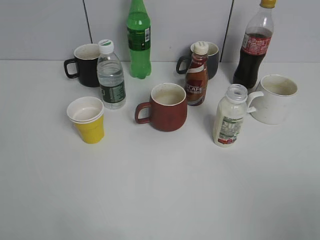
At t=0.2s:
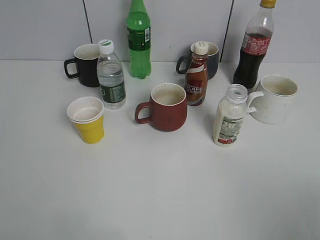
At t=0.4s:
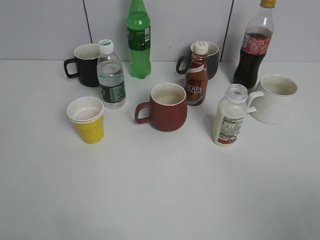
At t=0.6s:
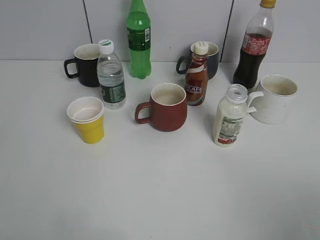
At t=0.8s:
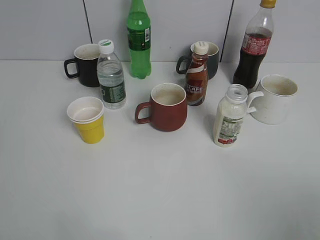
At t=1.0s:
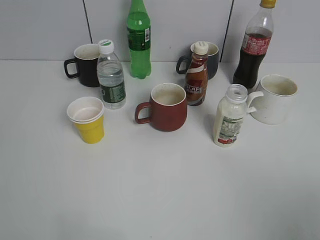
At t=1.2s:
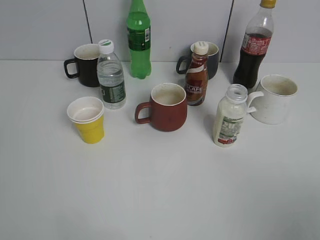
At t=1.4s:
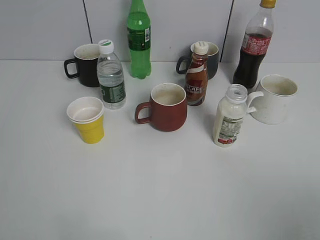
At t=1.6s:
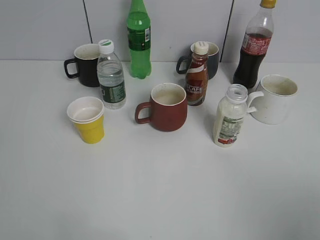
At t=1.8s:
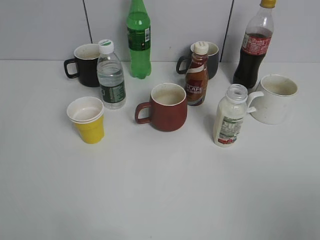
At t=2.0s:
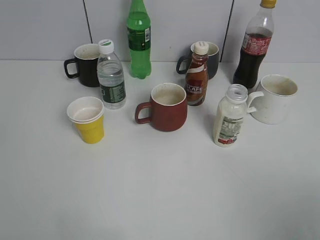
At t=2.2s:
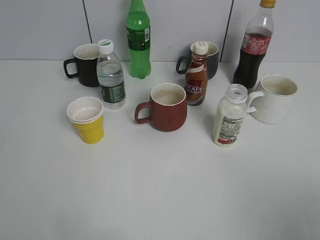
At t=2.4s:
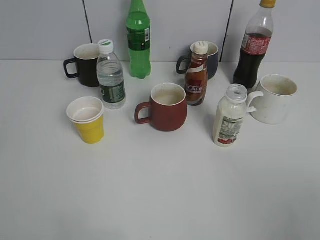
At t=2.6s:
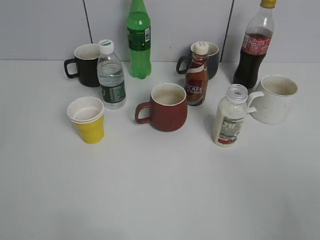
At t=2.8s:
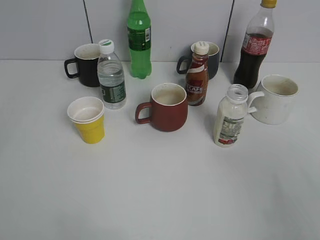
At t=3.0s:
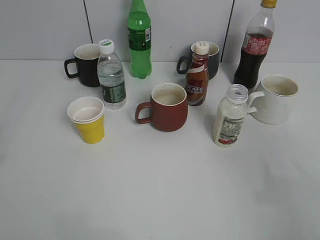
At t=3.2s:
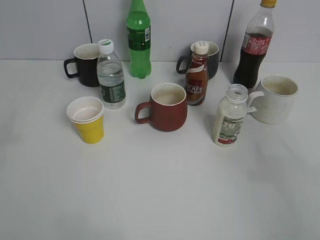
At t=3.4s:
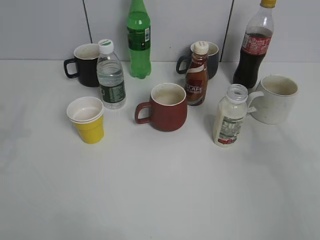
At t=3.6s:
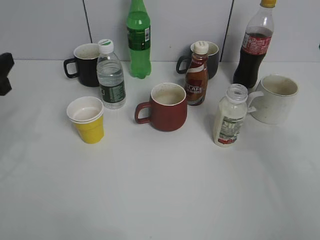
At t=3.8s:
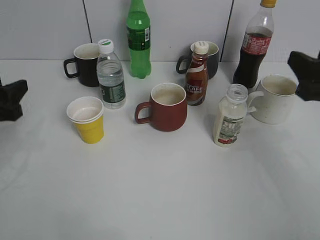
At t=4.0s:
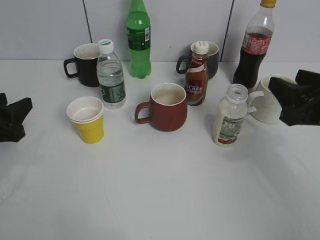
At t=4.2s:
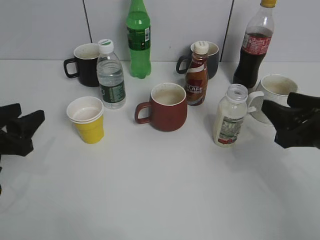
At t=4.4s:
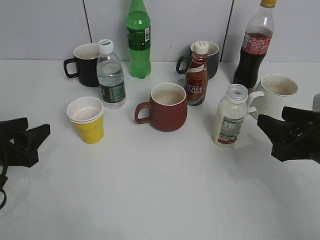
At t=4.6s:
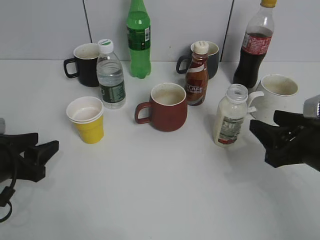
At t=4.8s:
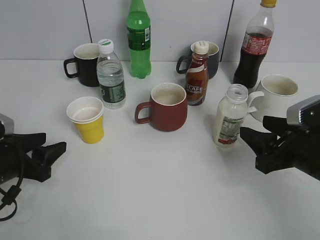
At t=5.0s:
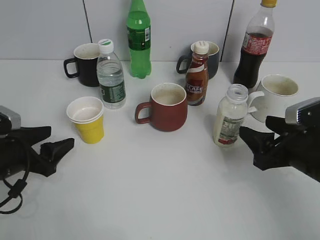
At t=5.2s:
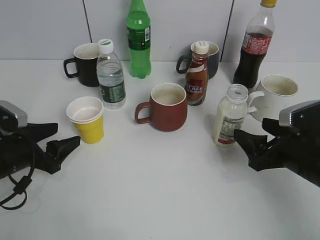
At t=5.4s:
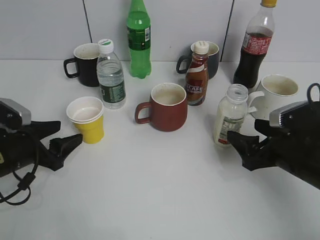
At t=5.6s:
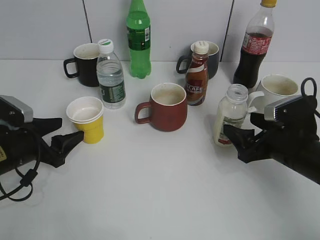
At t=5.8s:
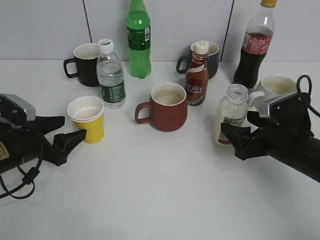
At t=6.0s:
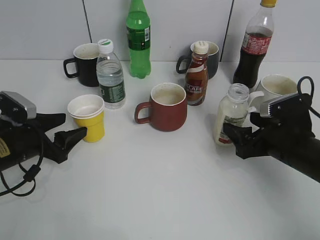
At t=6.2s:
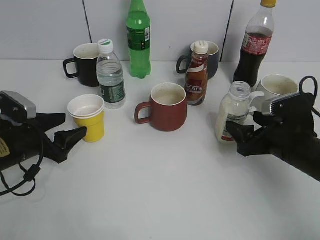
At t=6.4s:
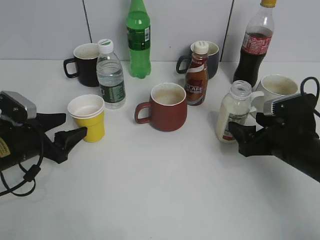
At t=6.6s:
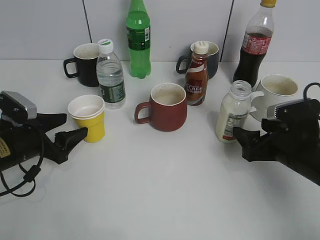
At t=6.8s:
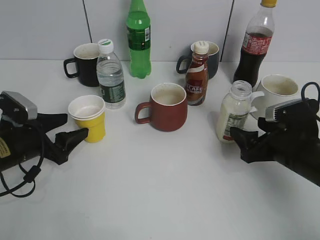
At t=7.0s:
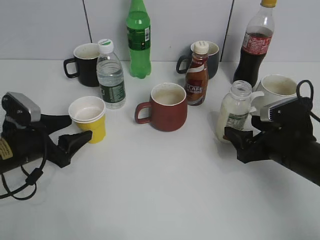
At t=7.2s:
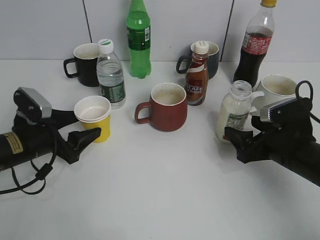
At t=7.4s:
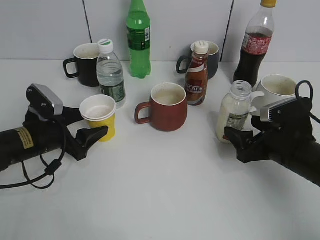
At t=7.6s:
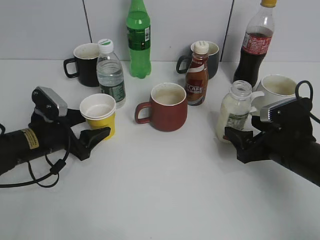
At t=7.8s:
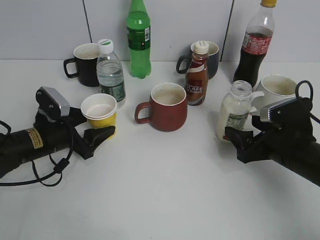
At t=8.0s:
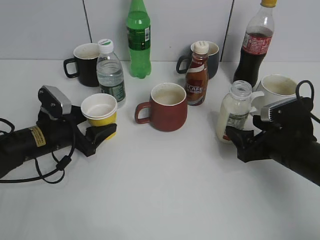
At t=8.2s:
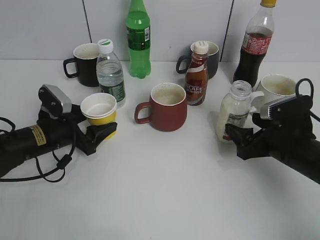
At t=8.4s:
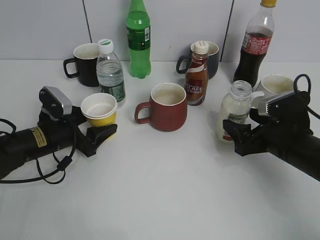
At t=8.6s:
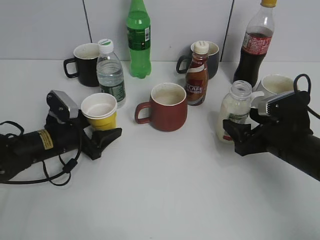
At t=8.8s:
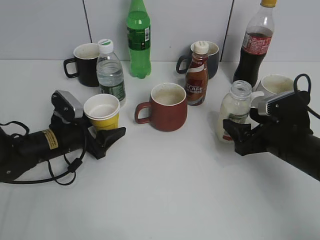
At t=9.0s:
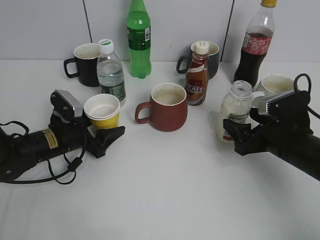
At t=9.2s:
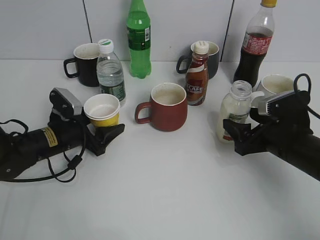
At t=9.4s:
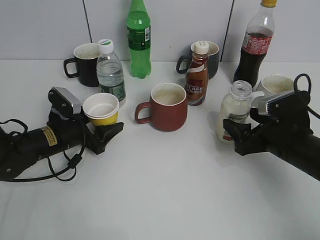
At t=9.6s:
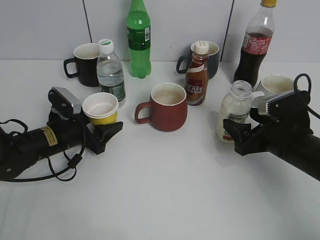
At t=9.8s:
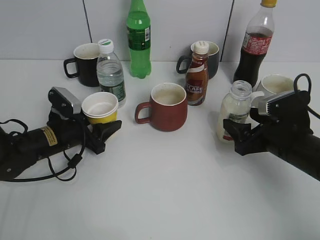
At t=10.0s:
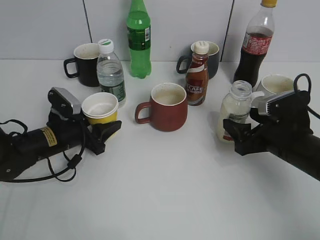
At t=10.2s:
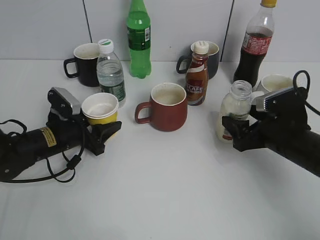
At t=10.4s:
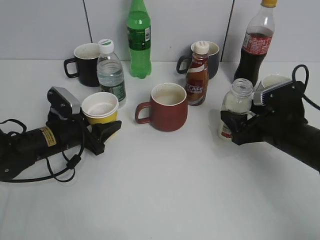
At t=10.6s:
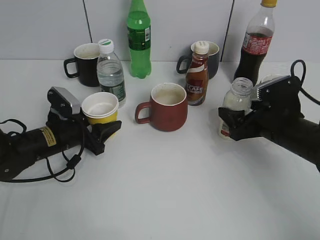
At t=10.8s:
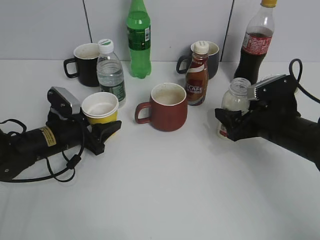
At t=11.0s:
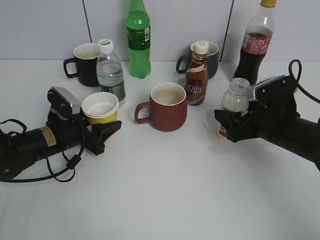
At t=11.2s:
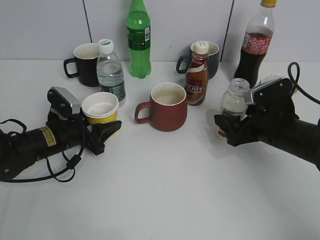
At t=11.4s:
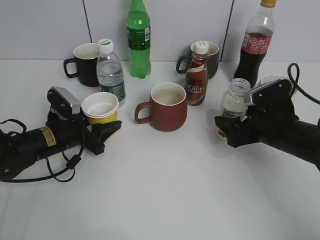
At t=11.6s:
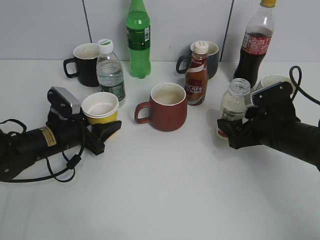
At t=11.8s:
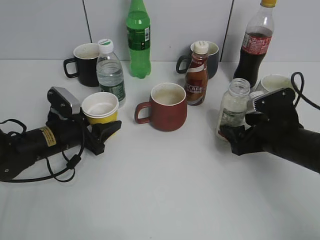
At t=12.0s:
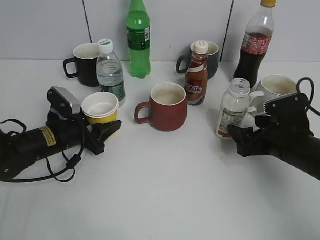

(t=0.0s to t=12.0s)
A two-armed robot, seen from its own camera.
Step, t=3.6s - t=9.8s: Grasp the yellow paper cup with left gripper.
Step, t=10.0s - t=10.2s: Lift the yellow paper cup with left gripper.
t=1.6s - t=3.0s: The right gripper goes roughly 10 cm forward, and closes up.
t=3.0s - t=4.4s: The left gripper moves downward, some 20 cm, while the right gripper goes about 20 cm downward and forward.
t=4.4s - t=6.0s: The right gripper heads downward and forward, covering about 10 cm, and opens. Meanwhile the left gripper goes approximately 5 cm forward, and opens.
t=6.0s - t=7.6s: The grippers make only small movements.
t=7.6s - t=9.0s: There are only small adjustments of the grippers.
t=9.0s - t=10.4s: The left gripper closes its fingers.
t=10.4s - t=12.0s: The grippers move only a little.

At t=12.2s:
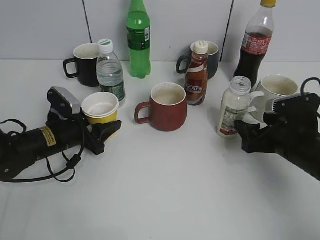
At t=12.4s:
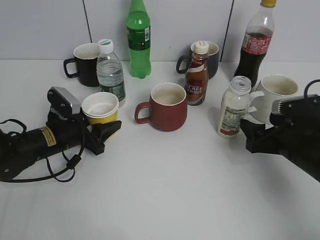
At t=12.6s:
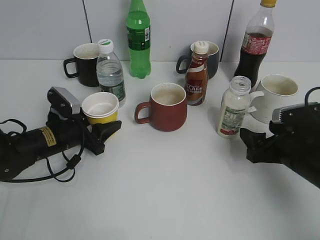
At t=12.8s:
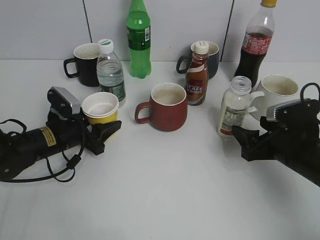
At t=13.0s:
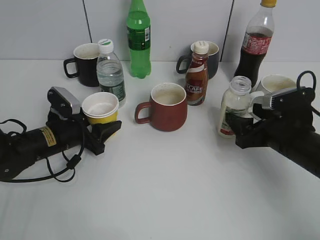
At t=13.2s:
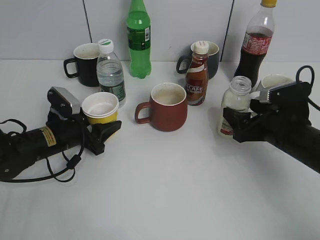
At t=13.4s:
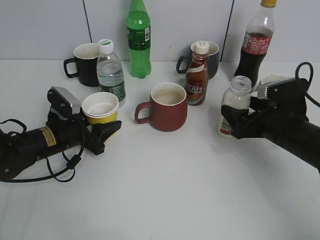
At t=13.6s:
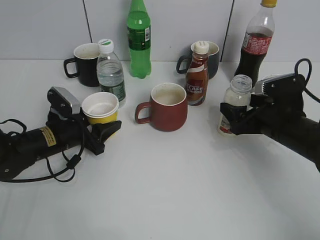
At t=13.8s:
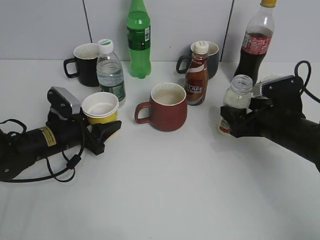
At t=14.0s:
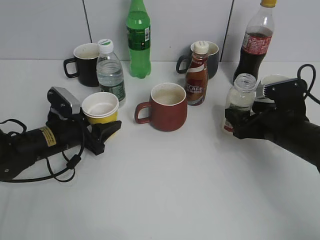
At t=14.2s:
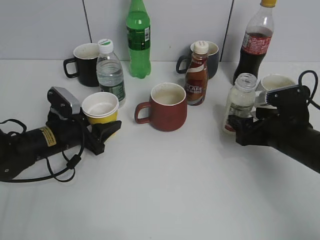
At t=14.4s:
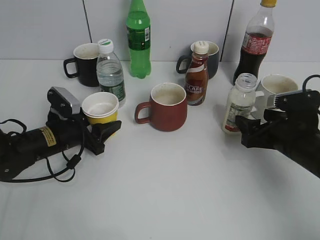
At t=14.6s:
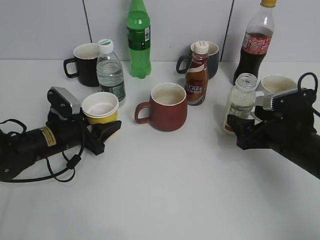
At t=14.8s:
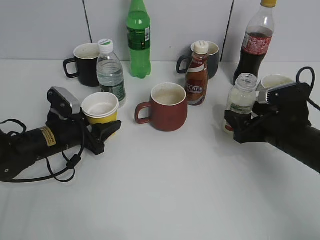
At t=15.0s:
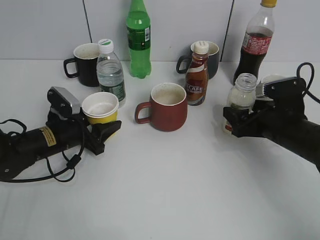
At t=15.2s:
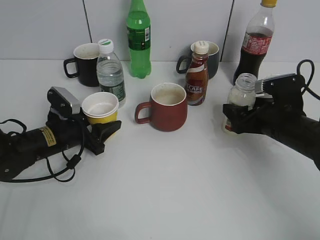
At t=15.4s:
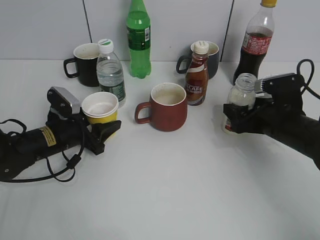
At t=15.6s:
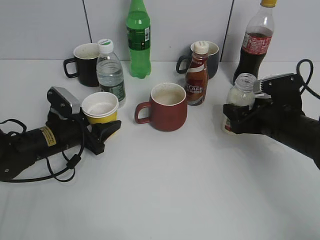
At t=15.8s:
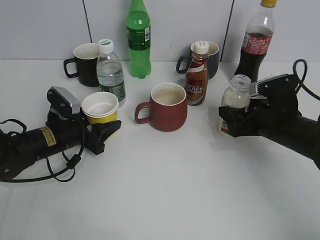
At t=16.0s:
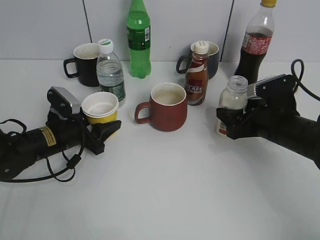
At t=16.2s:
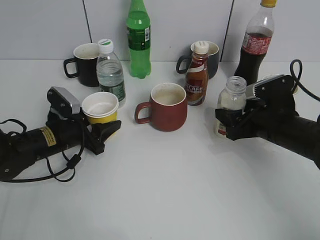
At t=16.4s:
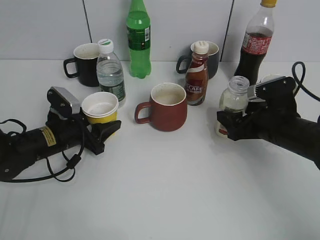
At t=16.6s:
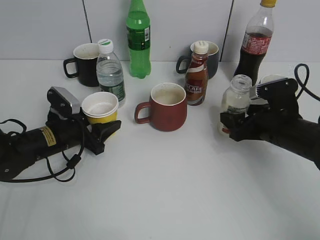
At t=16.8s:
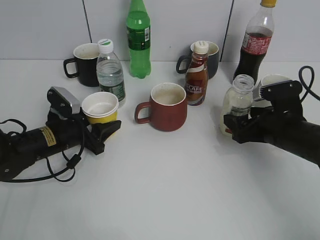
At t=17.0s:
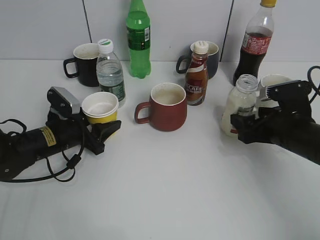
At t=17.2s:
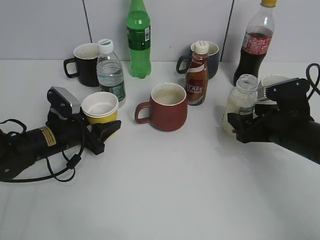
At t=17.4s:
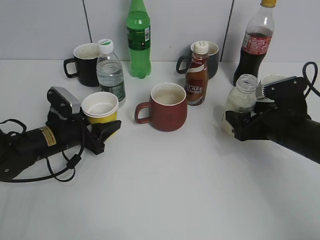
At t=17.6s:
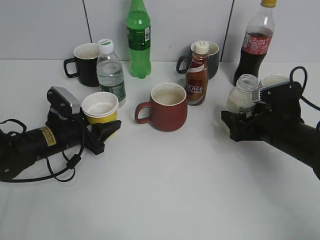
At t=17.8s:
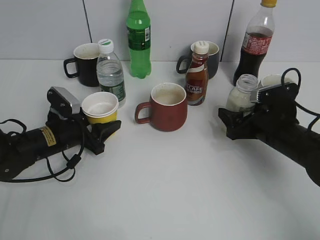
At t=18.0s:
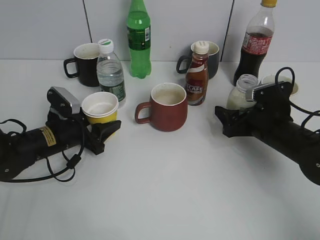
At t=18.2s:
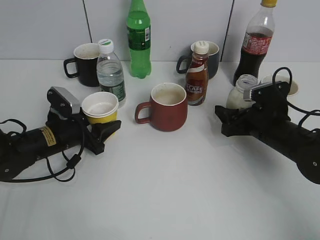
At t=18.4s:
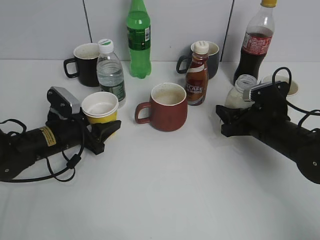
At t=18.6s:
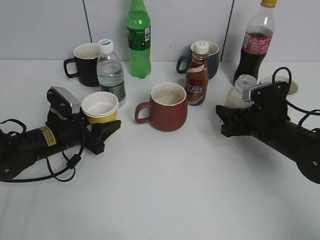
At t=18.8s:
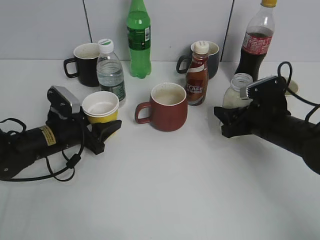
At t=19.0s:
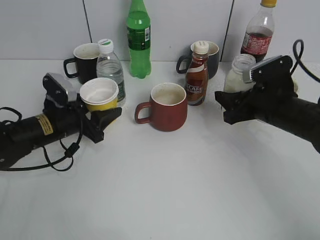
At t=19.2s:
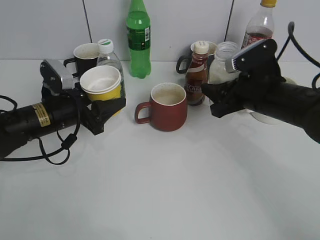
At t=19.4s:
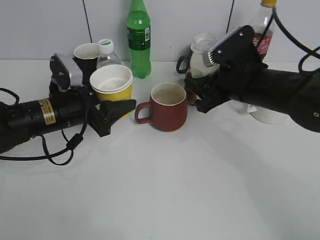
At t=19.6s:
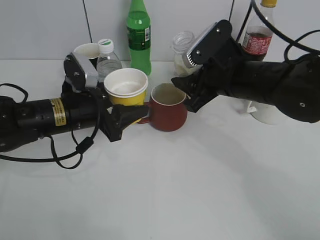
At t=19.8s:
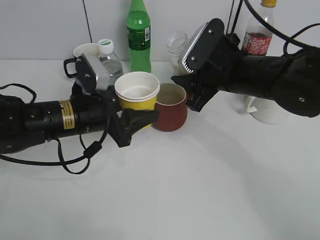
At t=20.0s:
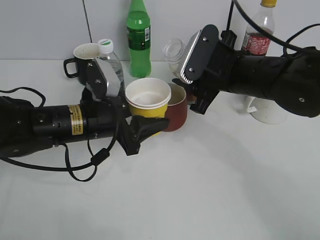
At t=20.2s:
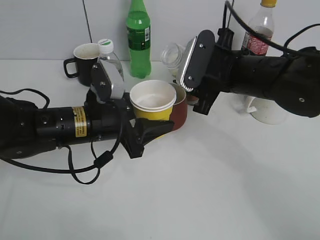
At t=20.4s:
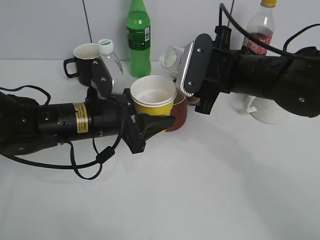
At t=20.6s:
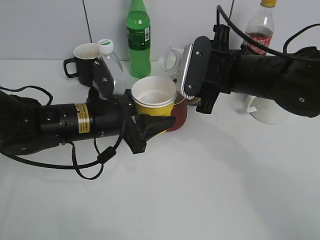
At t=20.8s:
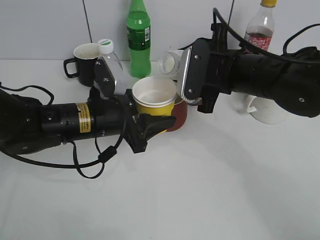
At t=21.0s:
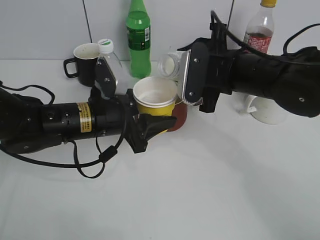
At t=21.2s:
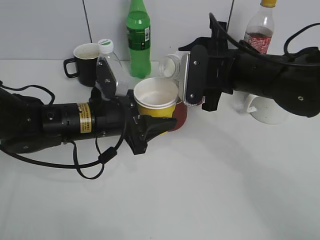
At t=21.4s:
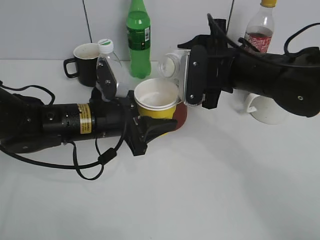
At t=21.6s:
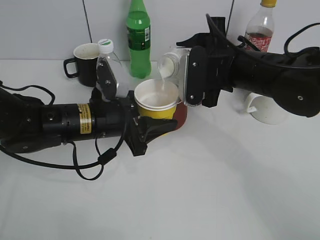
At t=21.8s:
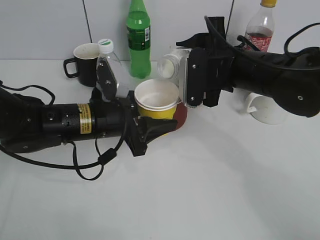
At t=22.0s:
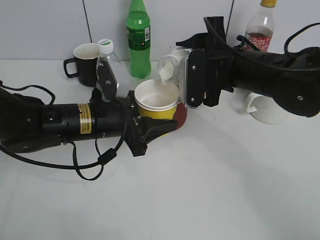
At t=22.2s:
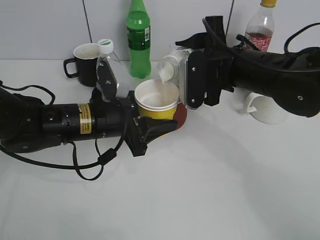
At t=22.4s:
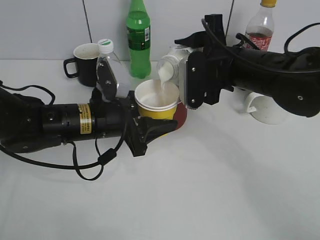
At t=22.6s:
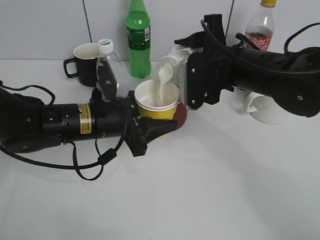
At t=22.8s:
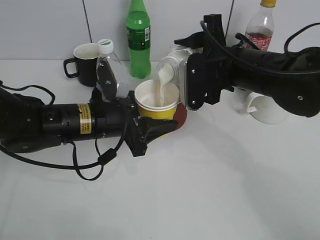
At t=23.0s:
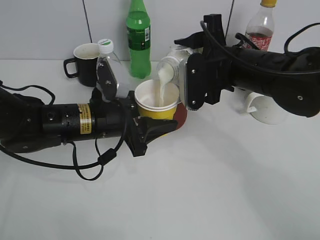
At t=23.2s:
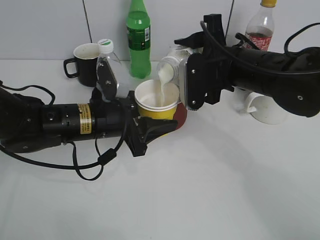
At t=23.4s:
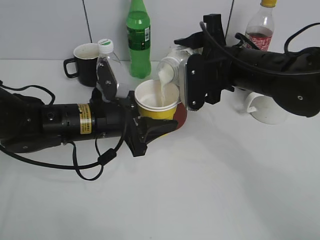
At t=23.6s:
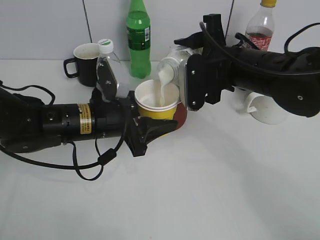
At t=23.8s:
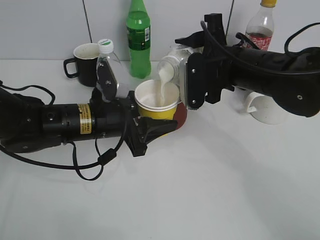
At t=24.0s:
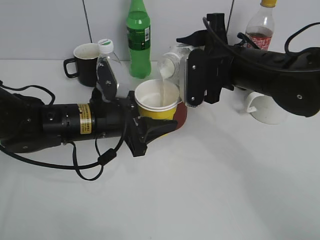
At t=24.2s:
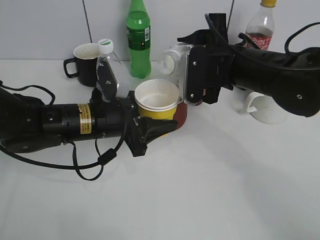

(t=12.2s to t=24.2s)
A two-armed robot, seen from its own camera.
Step, t=12.2s - t=18.4s: Grasp the bottle with yuexian Milk with right gripper.
t=12.2s - t=15.2s: The grippers move only a little.
t=15.2s - t=16.6s: The right gripper closes, then reopens.
t=16.6s - t=18.2s: The right gripper closes.
t=18.2s - t=19.8s: The left gripper shifts about 10 cm upward and to the right. Meanwhile the right gripper heads upward and to the left, covering some 15 cm, and closes.
t=21.2s - t=24.2s: There are only small adjustments of the grippers.
